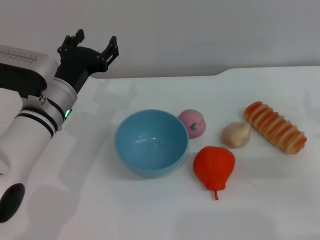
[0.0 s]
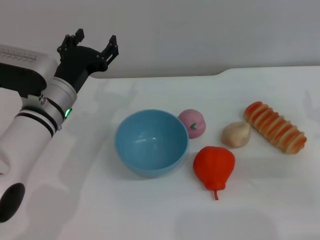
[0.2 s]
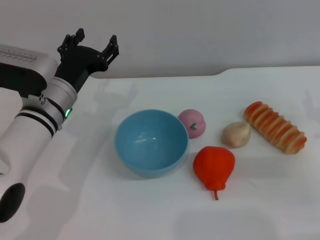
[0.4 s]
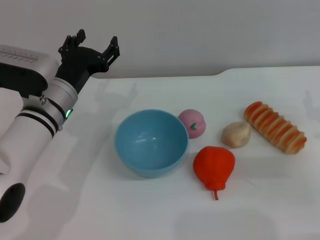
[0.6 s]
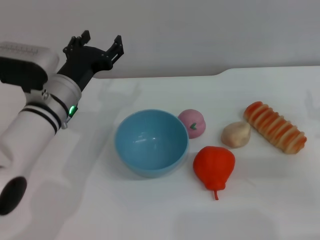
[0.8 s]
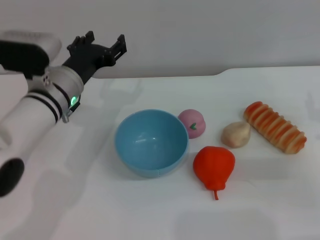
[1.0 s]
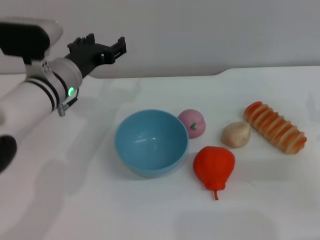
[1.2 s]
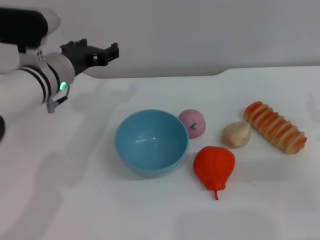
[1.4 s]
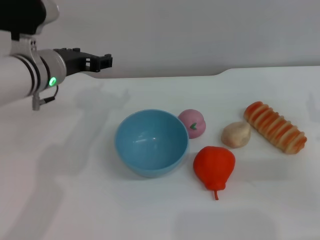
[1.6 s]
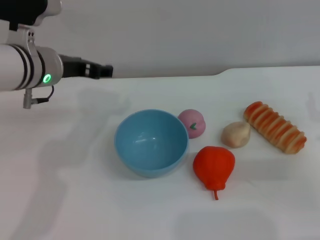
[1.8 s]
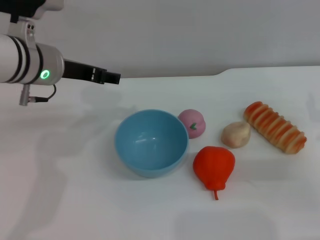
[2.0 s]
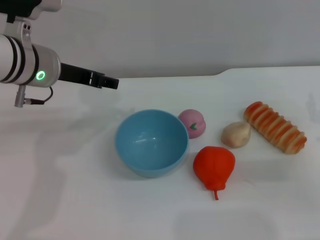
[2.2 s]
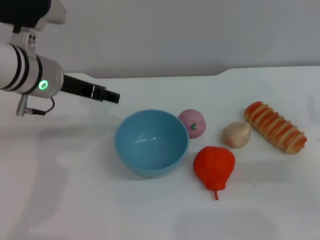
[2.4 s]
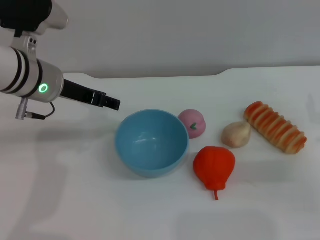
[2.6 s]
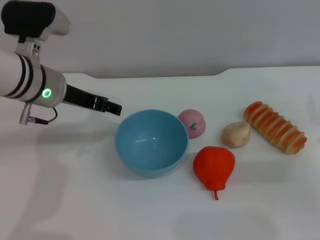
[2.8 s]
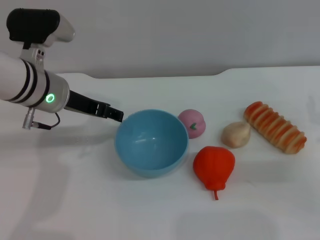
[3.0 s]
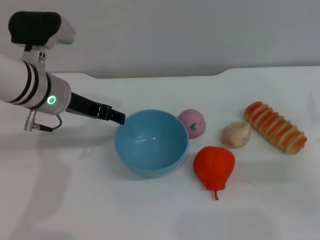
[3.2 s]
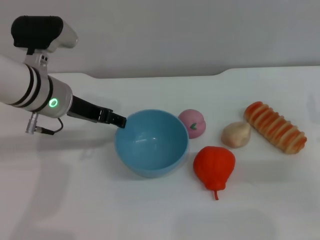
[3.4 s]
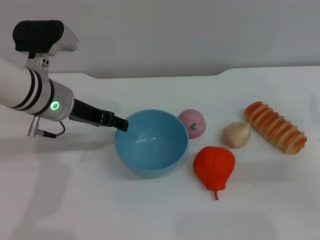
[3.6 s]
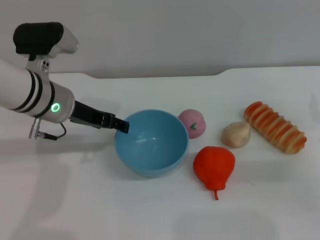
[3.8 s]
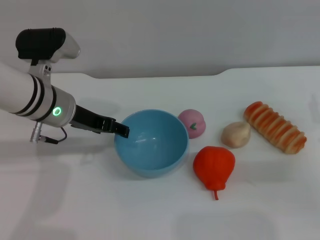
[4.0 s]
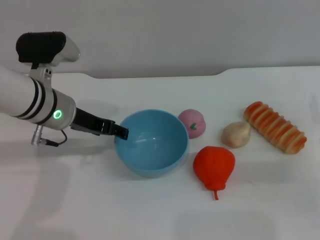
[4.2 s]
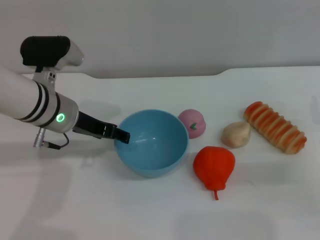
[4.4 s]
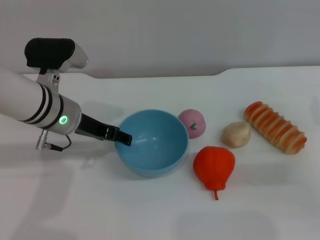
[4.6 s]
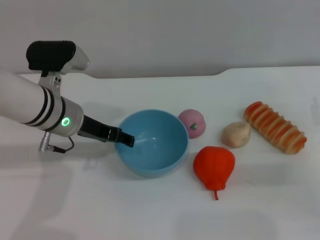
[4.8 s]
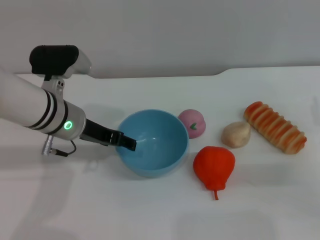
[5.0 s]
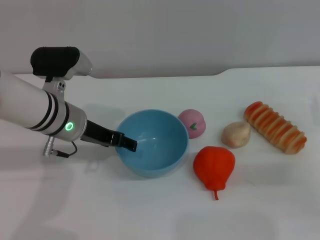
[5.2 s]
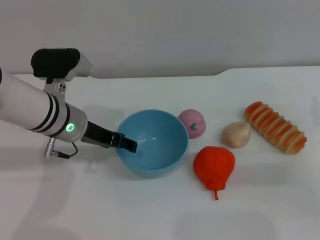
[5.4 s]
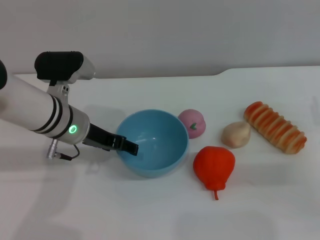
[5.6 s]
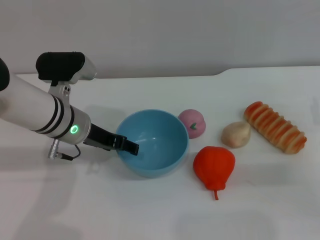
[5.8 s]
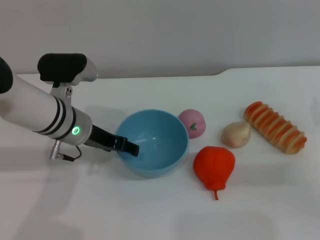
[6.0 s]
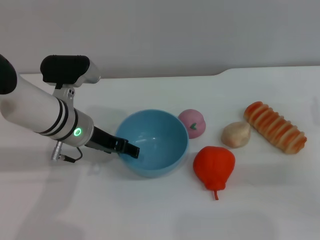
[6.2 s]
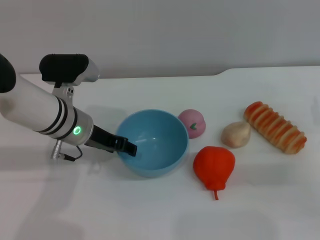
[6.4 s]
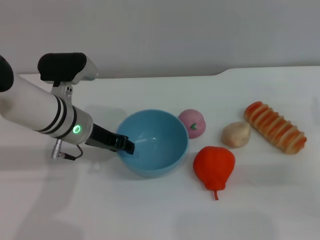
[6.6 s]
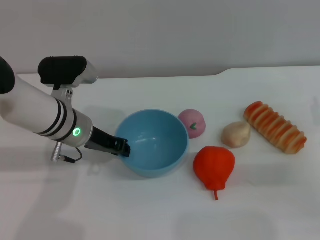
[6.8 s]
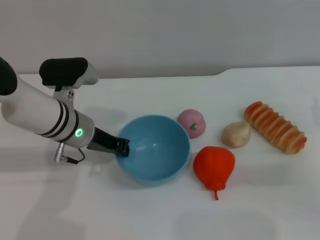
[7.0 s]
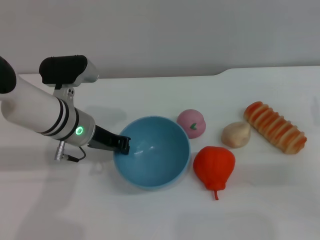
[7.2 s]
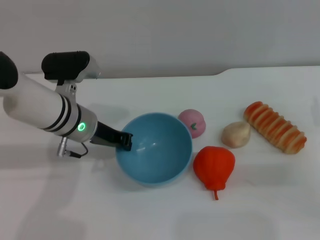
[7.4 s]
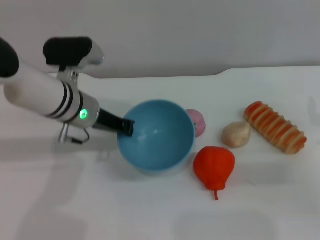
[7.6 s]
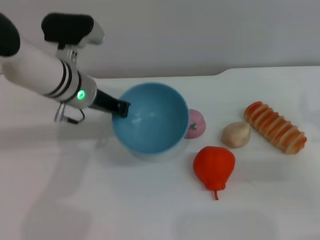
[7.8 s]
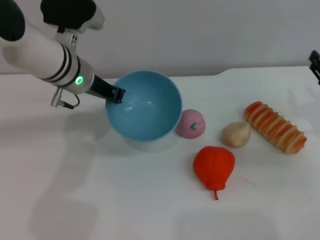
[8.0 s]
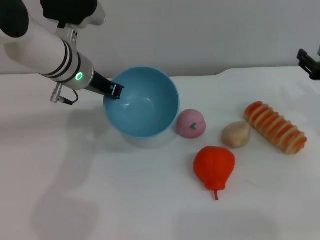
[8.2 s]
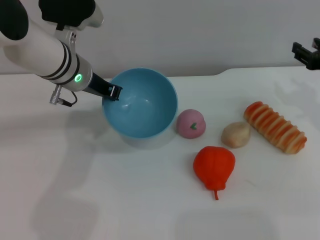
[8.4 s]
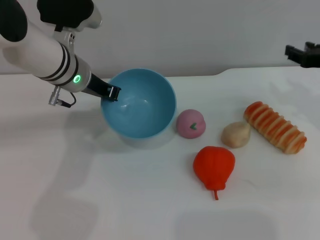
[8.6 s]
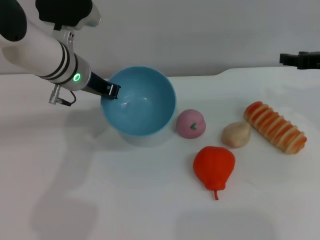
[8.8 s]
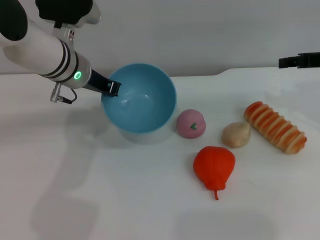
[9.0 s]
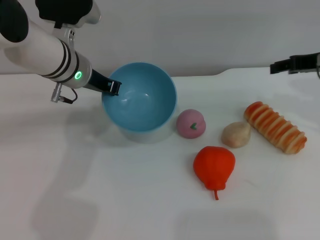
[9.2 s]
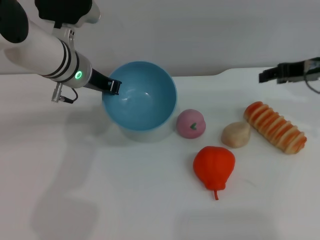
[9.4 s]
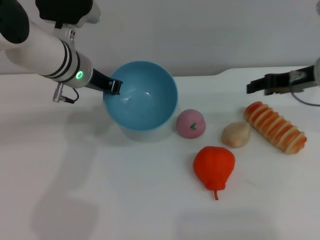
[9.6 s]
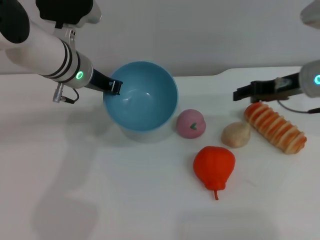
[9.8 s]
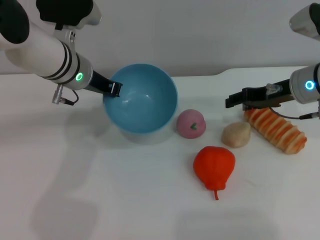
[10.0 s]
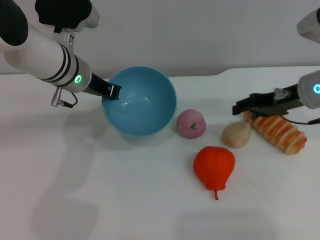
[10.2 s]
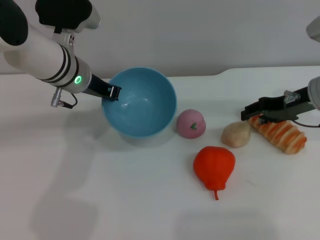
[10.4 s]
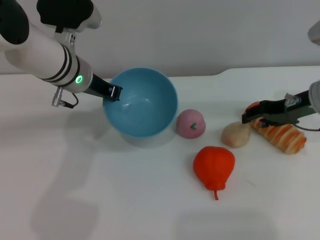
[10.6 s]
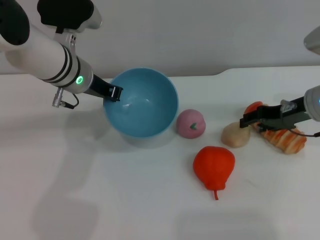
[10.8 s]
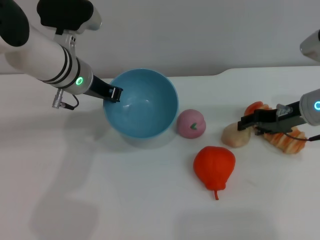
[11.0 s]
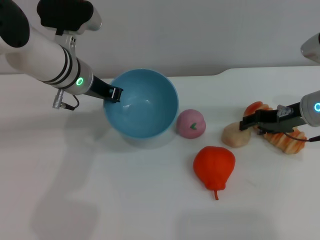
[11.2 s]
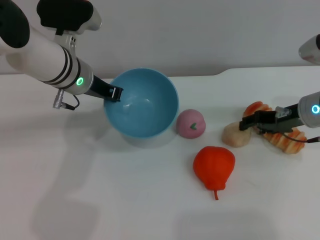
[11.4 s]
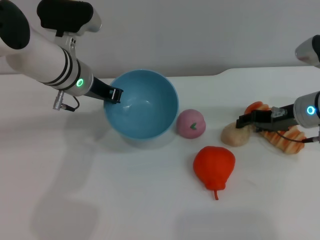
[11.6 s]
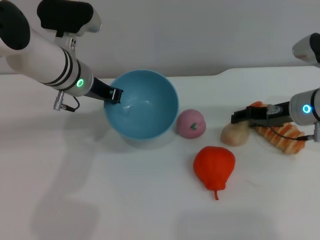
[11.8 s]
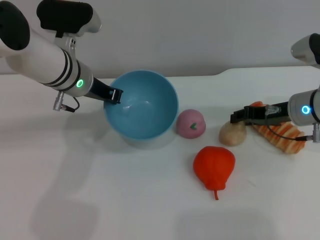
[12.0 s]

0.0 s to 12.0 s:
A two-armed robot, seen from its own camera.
Task of the whole recording: put the egg yolk pastry into the blue bowl and pour it out repeatedly.
Step, 0.0 to 8.6 s: Pick up the bowl with the left gripper.
0.0 to 1.6 s: The left gripper is displaced upward by some 5 cm.
3.0 to 4.4 s: The grippers stay close to where they were, moving slightly.
4.4 to 6.0 s: There are only small adjustments of the grippers.
6.0 to 7.6 s: The left gripper closes.
7.6 to 9.0 s: The right gripper is displaced upward and forward by about 15 cm. Meanwhile the left gripper ends up about 5 cm from where it was.
9.0 to 10.4 s: The right gripper changes place by about 5 cm.
10.4 to 12.0 s: The grippers make only small movements.

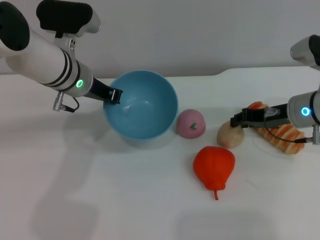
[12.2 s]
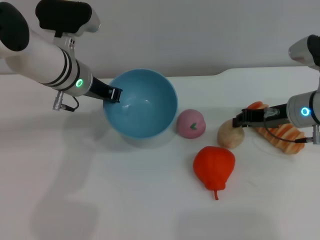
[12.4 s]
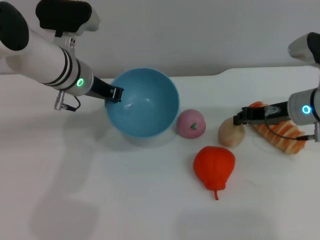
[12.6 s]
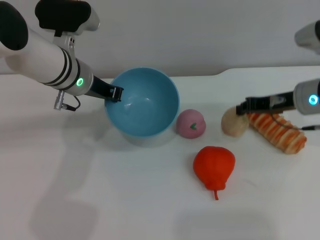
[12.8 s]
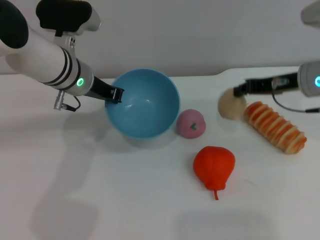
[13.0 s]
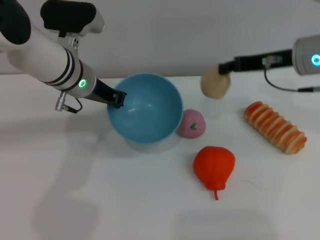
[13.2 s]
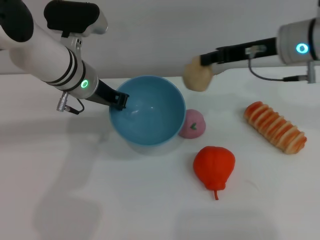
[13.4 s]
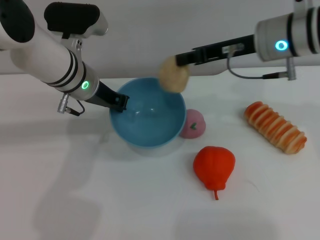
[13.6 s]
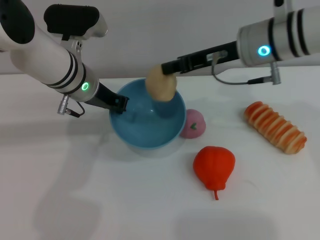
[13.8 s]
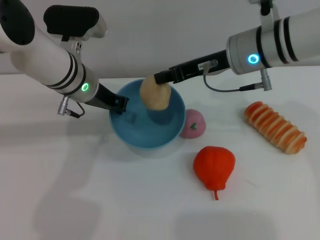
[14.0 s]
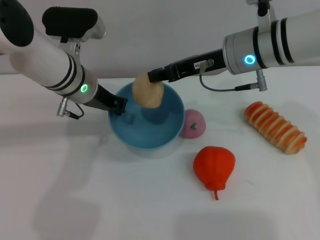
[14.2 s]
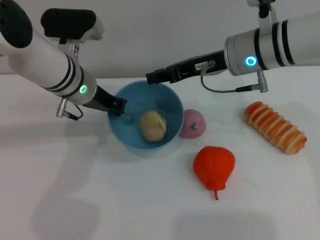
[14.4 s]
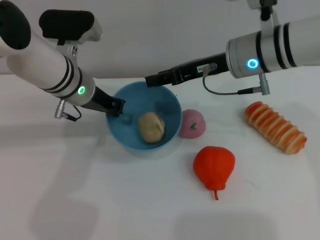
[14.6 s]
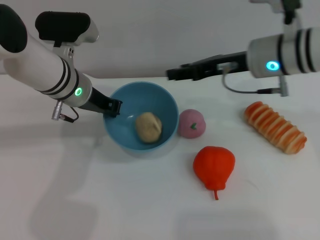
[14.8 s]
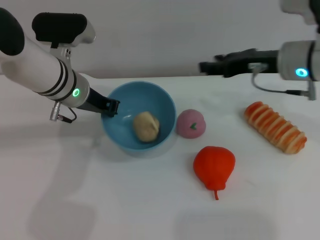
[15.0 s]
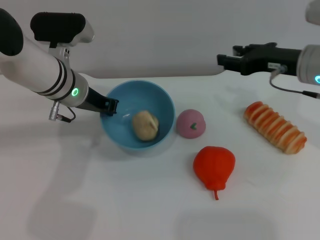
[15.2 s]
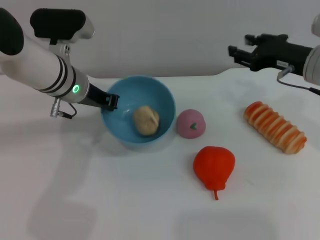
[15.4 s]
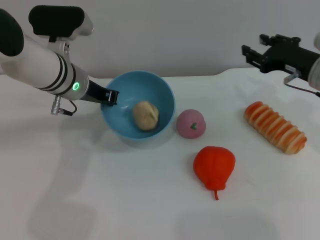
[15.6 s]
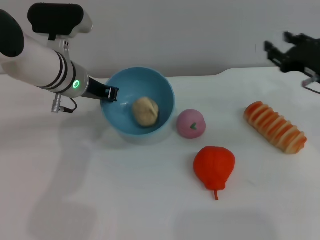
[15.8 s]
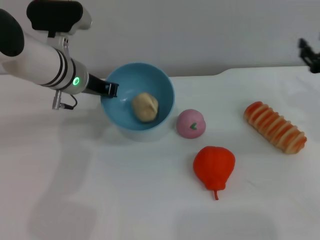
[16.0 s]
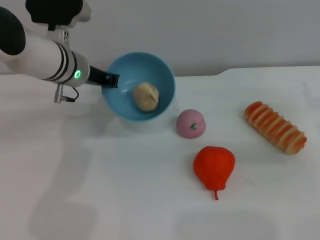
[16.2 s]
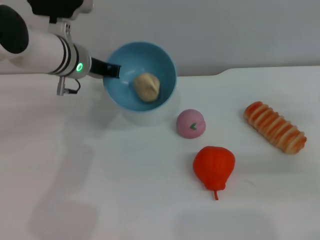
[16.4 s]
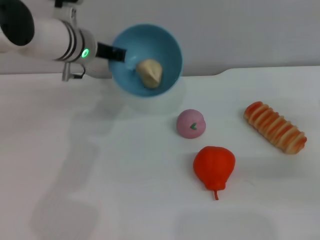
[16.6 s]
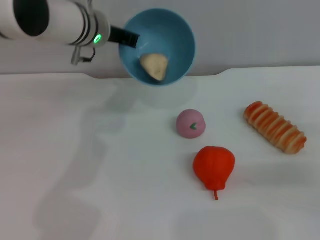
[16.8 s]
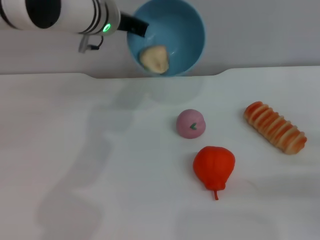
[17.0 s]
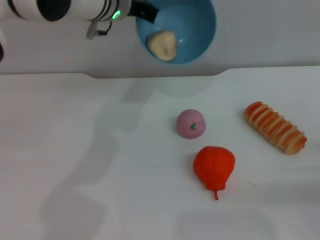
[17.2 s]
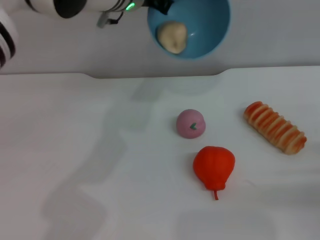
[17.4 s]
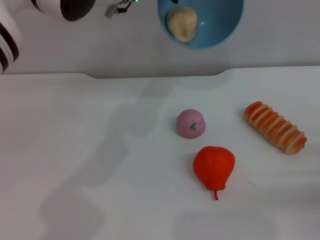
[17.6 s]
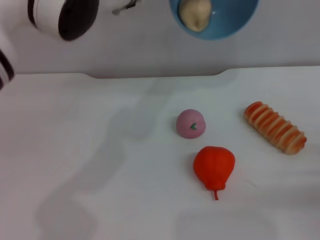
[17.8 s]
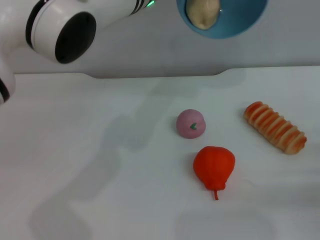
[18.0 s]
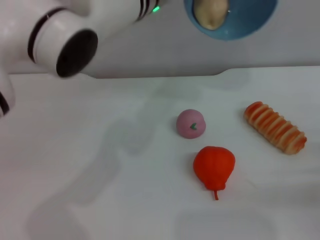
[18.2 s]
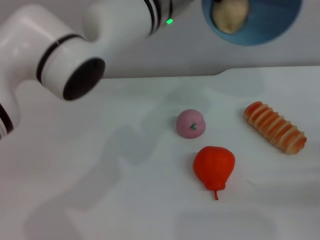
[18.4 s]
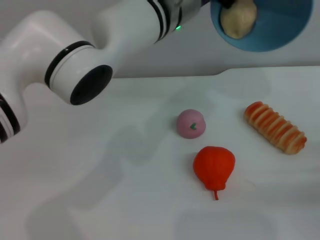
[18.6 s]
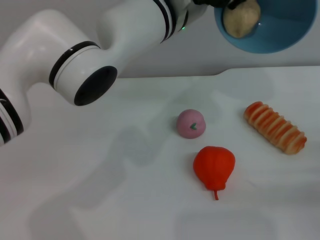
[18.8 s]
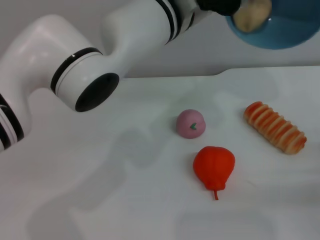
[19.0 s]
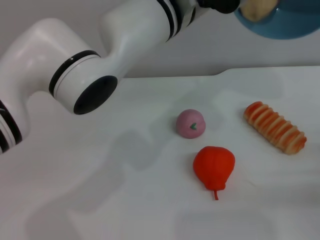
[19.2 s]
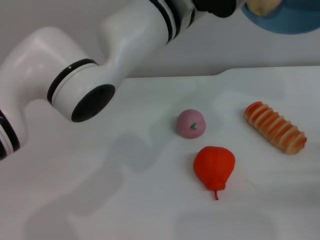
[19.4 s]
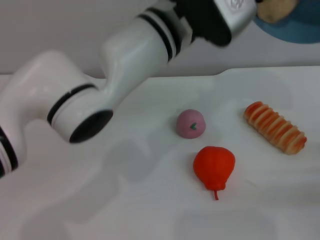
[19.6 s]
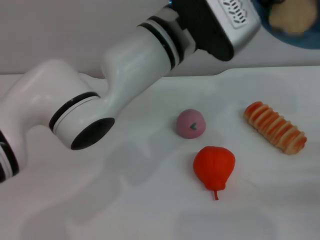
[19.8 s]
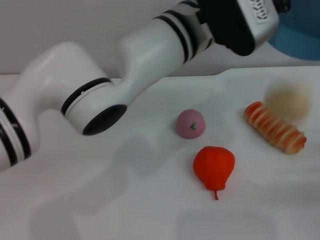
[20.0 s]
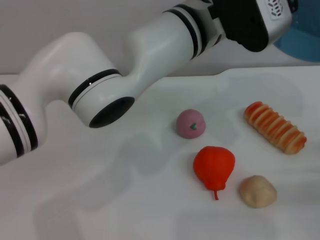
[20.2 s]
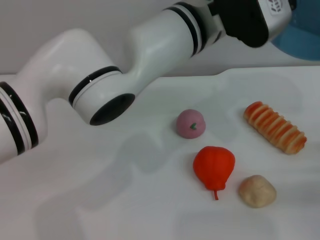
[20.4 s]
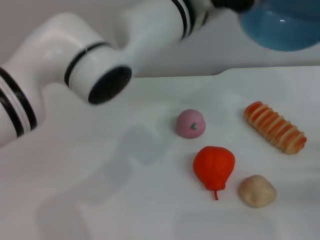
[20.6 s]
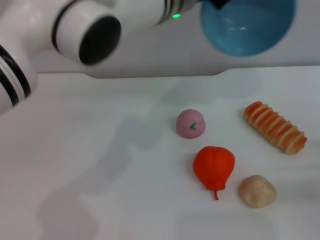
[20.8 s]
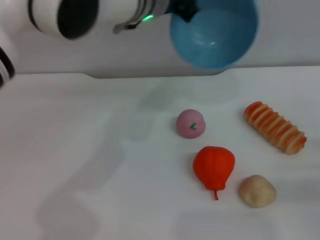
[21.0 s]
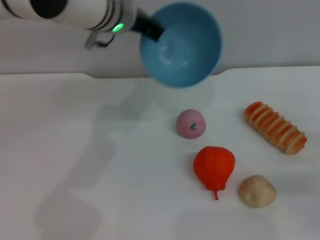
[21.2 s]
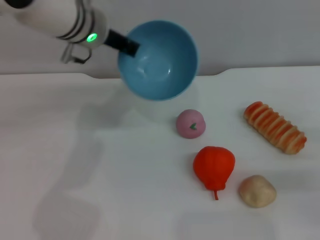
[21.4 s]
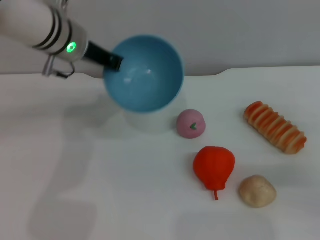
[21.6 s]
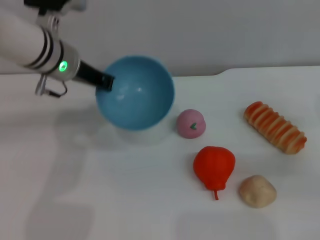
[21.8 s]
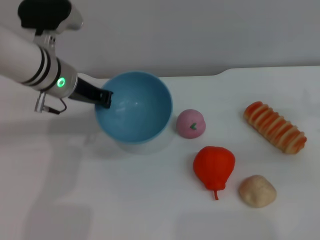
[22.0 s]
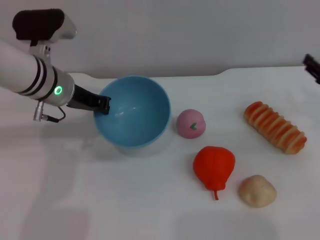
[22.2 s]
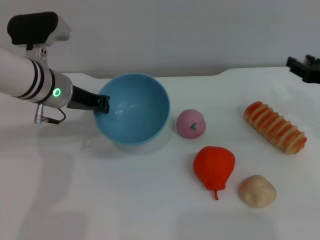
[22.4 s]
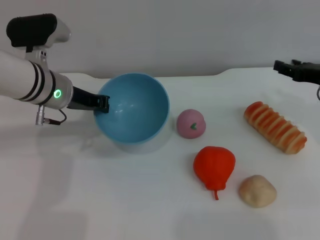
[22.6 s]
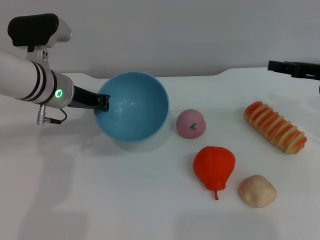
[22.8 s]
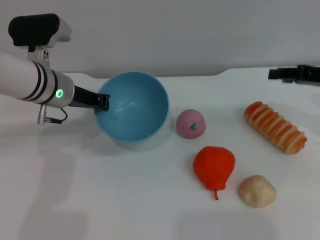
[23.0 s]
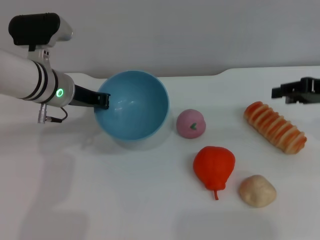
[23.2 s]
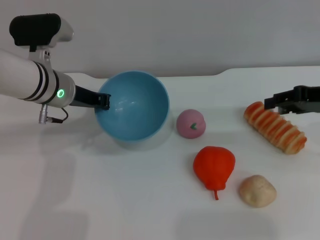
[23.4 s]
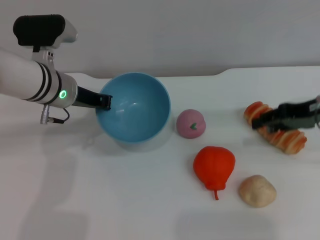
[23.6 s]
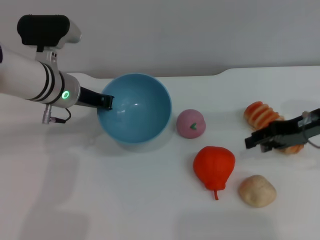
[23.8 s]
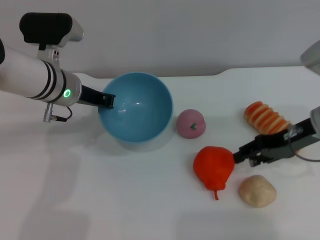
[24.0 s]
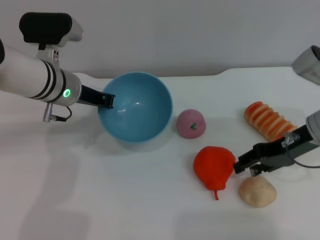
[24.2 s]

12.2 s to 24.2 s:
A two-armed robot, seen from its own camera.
Task of the whole recording: put the egg yolk pastry into the blue bowl and pour it out repeatedly.
Step, 13.2 to 14.8 s: Place the egg yolk pastry into the bowl.
Step, 15.0 to 20.2 s: Pour the egg yolk pastry out of bowl.
12.2 to 13.8 s: The right gripper is displaced upward and to the left by approximately 15 cm, and closes its fingers.
13.8 to 15.2 s: The right gripper is displaced to the right by approximately 10 cm, and opens.
15.2 to 16.6 s: The right gripper travels to the right, downward and backward by about 20 cm, while the left gripper ends up roughly 5 cm from where it was.
16.6 to 18.2 s: The left gripper goes some 15 cm to the right and upward. The right gripper travels backward by some 5 cm.
18.2 to 19.8 s: The left gripper goes approximately 5 cm backward.
19.8 to 21.2 s: The left gripper travels forward and to the left by about 10 cm.
21.2 to 22.6 s: The right gripper travels forward, upward and to the left by roughly 15 cm. Meanwhile the left gripper heads to the left and downward, covering approximately 15 cm.
22.6 to 24.2 s: The right gripper travels to the left by some 5 cm.
